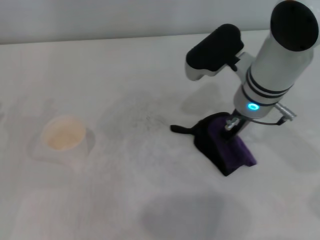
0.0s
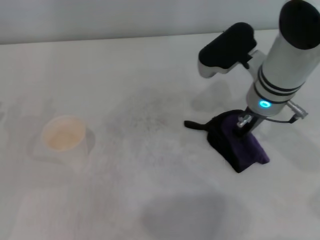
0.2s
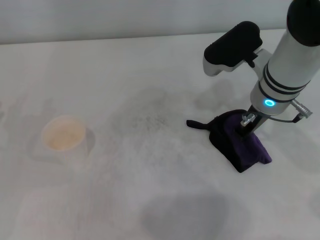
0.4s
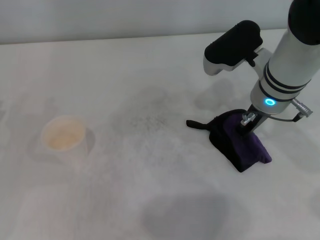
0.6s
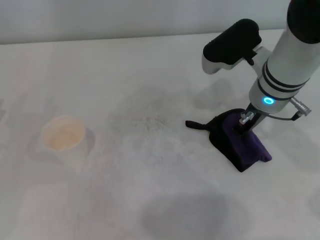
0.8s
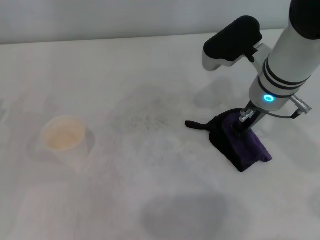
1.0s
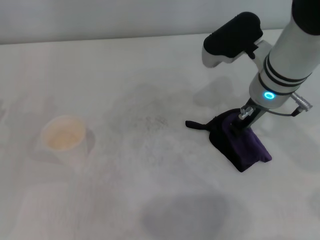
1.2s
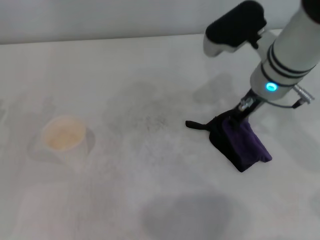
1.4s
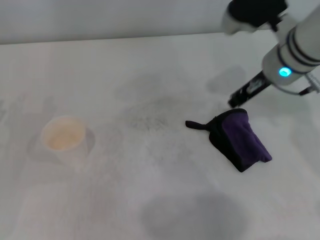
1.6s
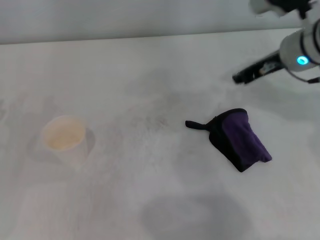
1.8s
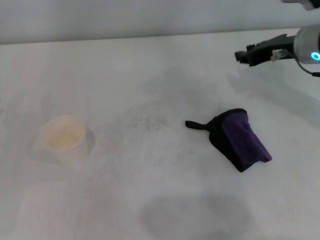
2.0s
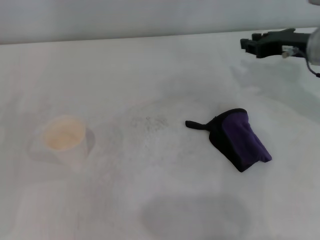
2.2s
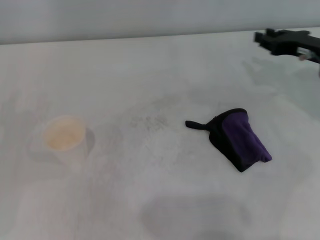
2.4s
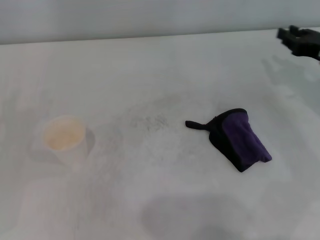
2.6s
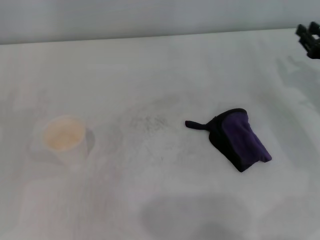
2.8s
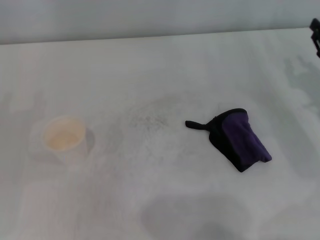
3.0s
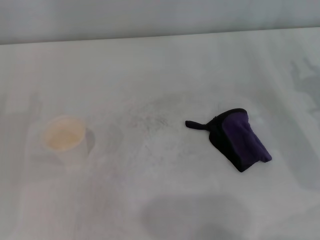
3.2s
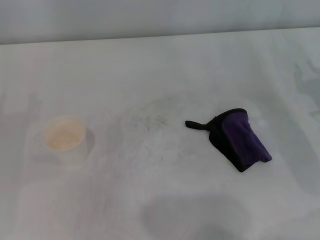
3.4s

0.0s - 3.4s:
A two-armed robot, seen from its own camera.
Step, 0.6s - 1.2s: Place the rag on the table with the right gripper.
0.0s - 1.6s: The right gripper shifts by about 5 cm, and opens.
1.6s - 3.4s: The right gripper travels to the right, downward and backward by about 20 cm.

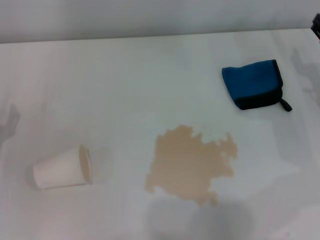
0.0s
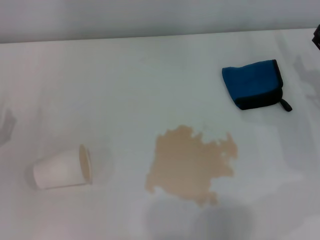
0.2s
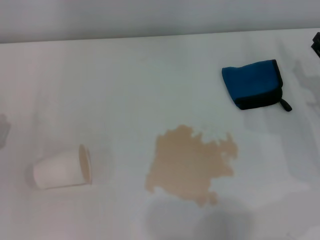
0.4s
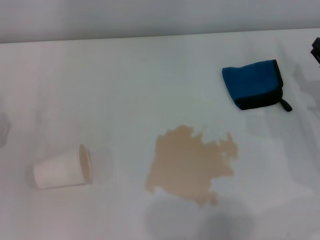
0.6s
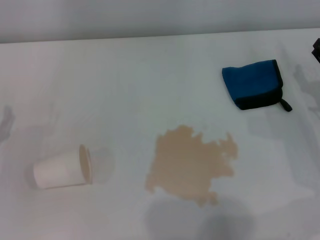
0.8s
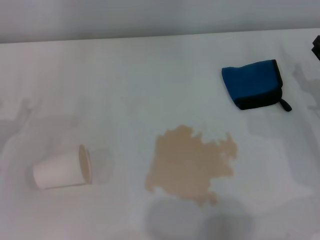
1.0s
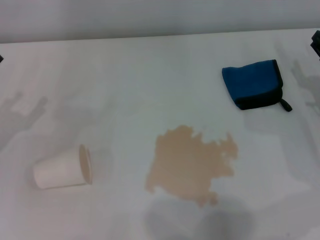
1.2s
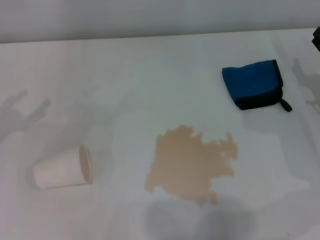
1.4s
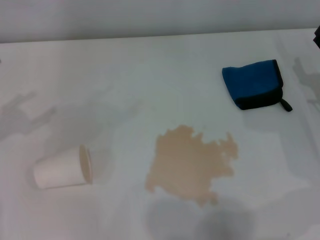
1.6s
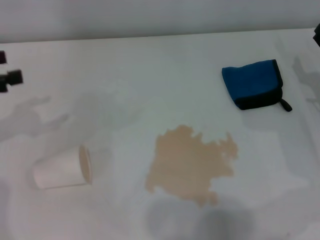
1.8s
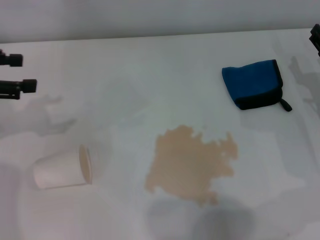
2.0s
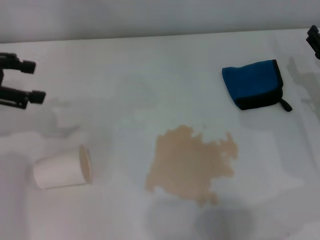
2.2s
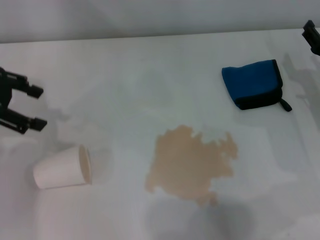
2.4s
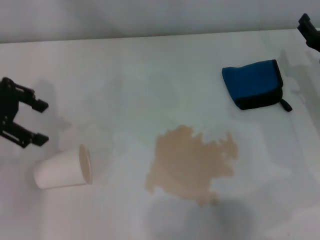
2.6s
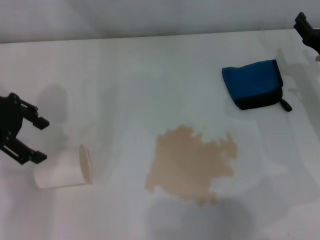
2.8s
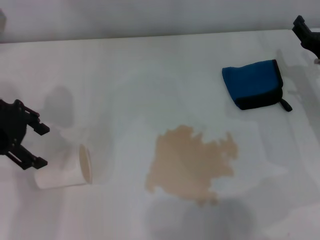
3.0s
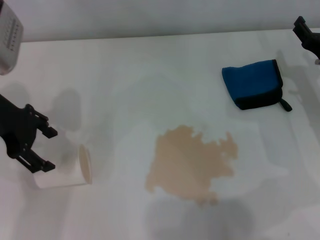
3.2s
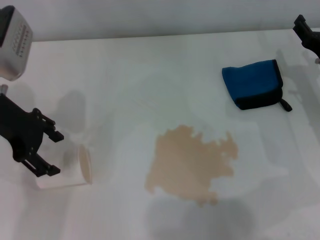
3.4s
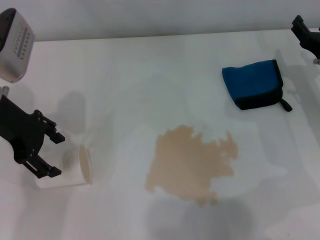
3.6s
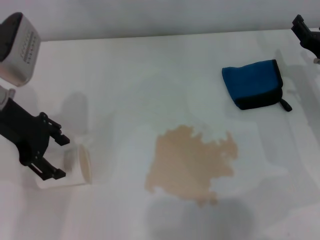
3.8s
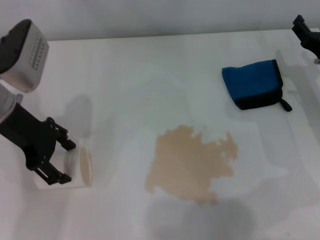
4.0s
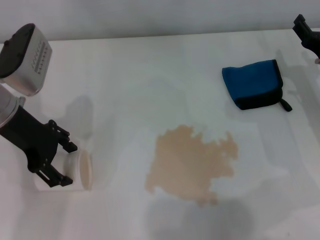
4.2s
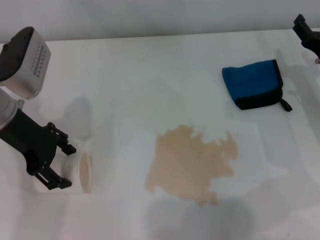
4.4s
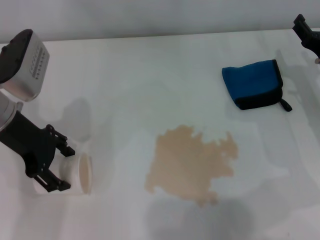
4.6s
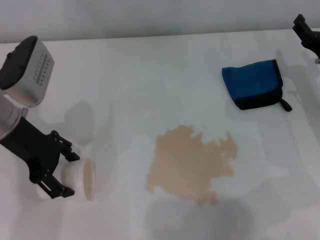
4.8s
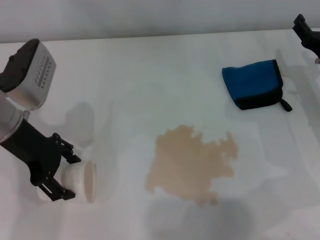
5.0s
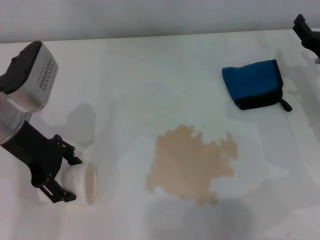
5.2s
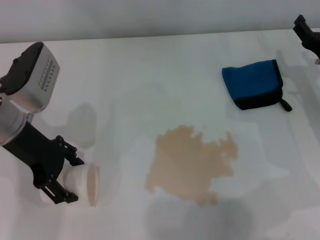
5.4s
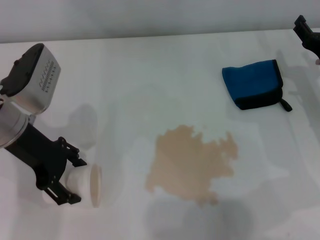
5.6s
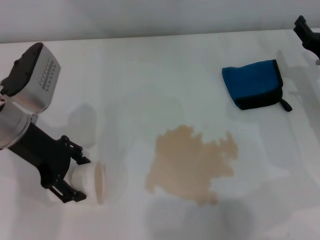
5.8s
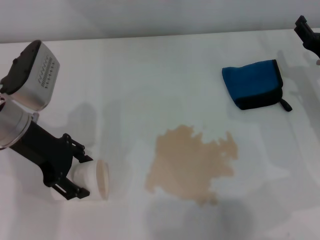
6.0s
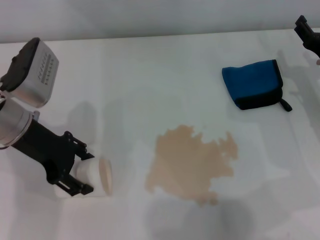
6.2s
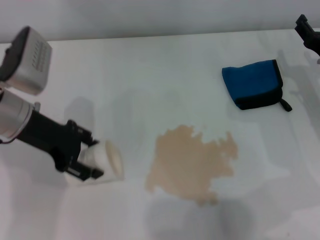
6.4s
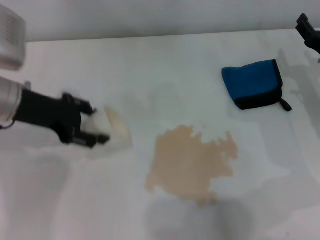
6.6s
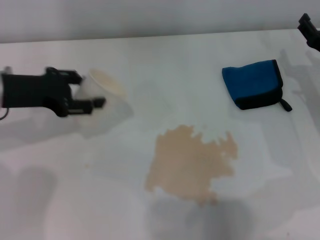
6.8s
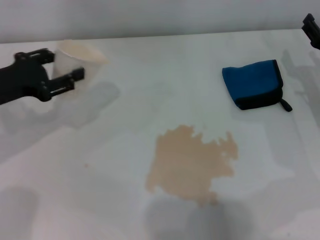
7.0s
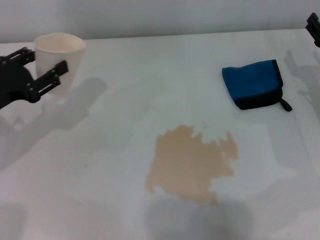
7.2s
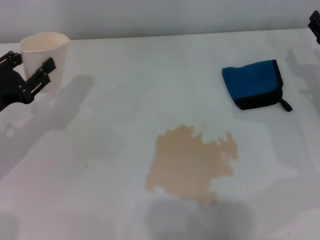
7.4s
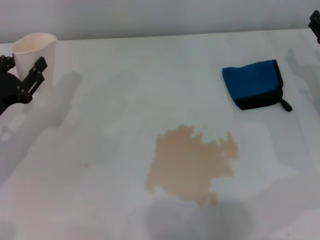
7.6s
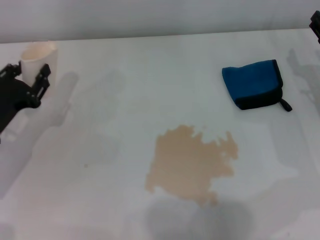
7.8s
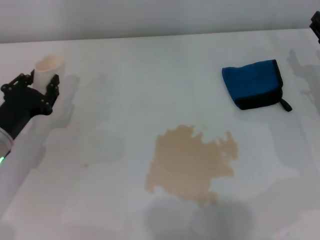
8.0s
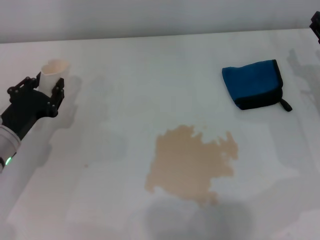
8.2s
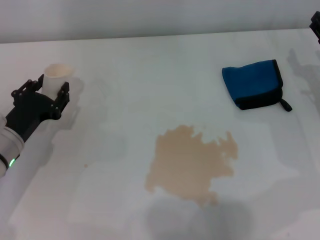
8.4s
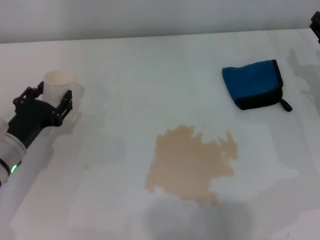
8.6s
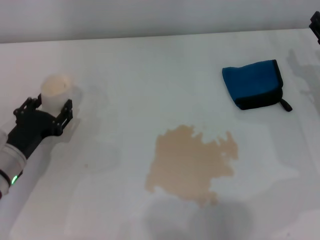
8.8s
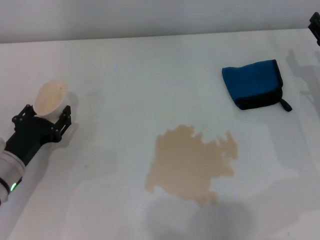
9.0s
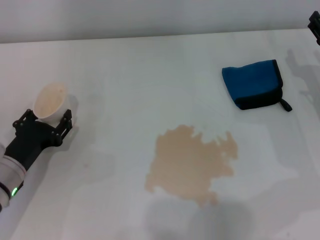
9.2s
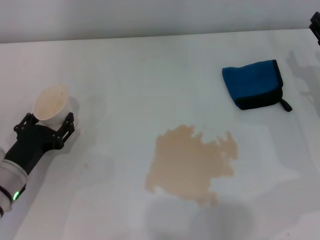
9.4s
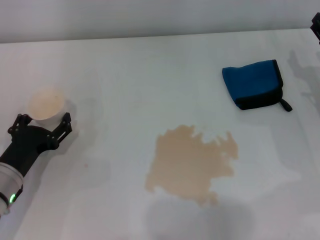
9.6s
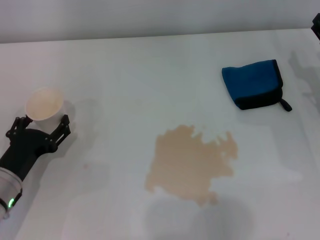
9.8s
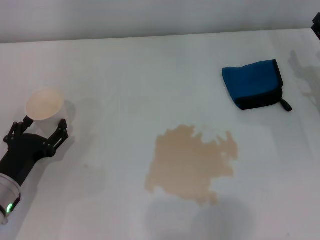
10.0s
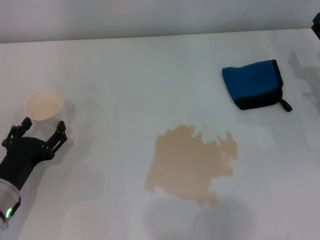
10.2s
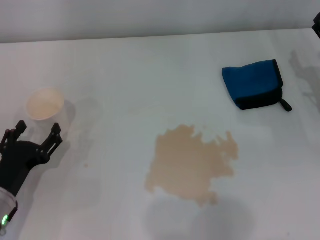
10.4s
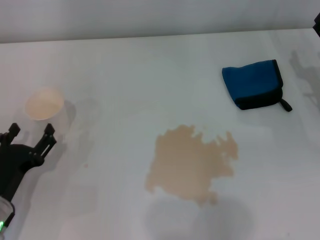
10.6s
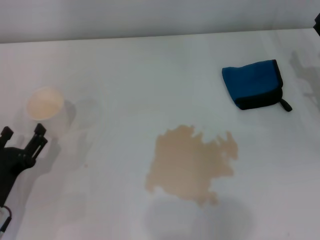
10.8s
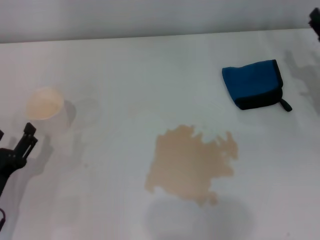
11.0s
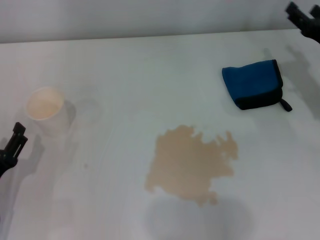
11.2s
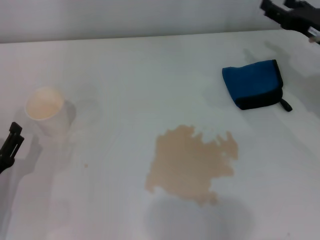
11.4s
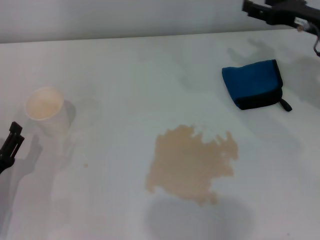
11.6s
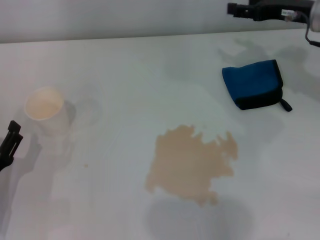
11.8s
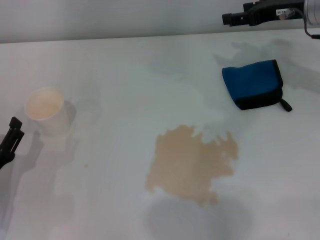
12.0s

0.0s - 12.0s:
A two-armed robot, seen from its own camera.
Step, 0.0s - 5.0s: Grasp the paper cup with the left gripper.
Step, 5.2s - 9.8s: Stand the paper cup upright with the left gripper.
1.6s - 3.0s: The left gripper travels to the right and forward by about 15 cm.
3.0s - 4.4s: The left gripper changes place by approximately 5 cm.
4.4s - 6.0s: The grippers stay close to where they were, moving slightly.
6.0s - 7.6s: The left gripper goes some 10 cm to the left, downward and backward, and closes.
7.6s - 9.0s: The left gripper goes roughly 5 cm downward.
9.0s - 10.4s: The left gripper is displaced backward by roughly 5 cm, and opens.
10.4s - 12.0s: The right gripper is displaced upward, forward and to the left by about 15 cm.

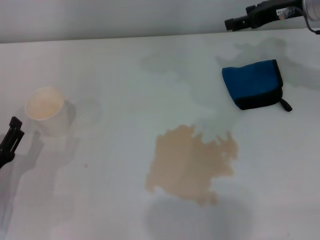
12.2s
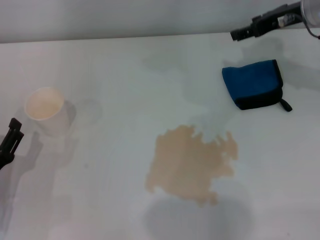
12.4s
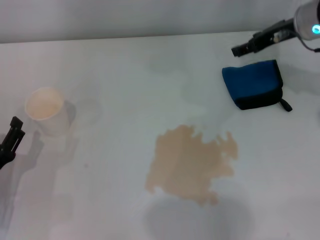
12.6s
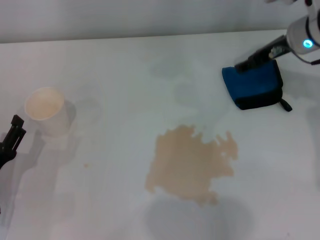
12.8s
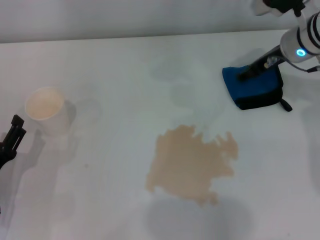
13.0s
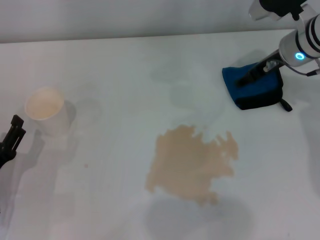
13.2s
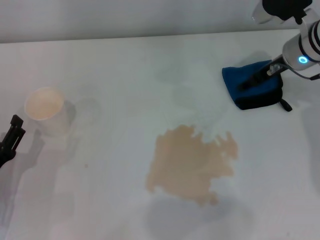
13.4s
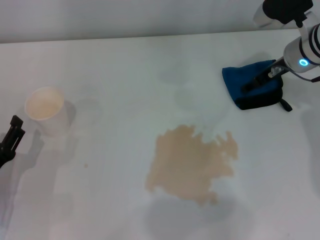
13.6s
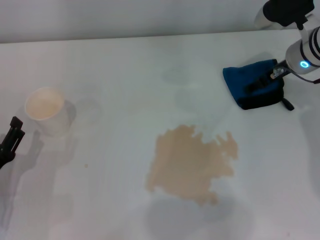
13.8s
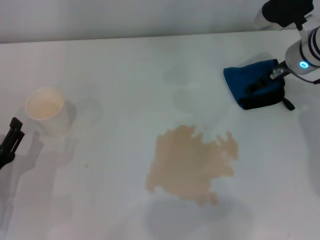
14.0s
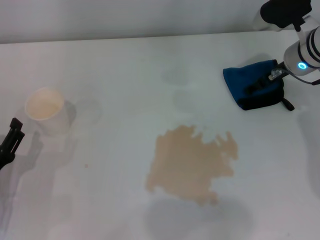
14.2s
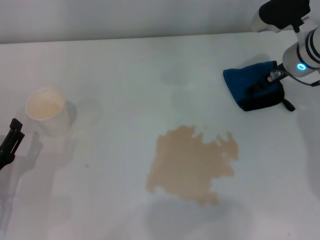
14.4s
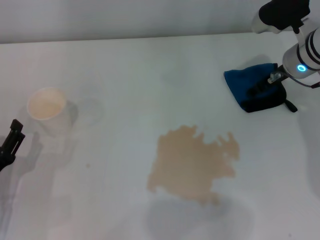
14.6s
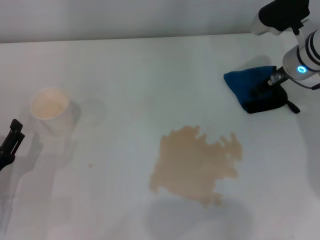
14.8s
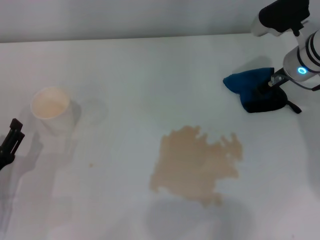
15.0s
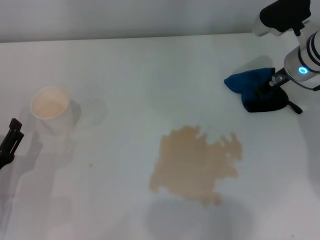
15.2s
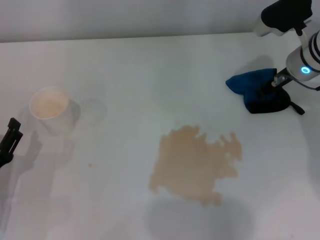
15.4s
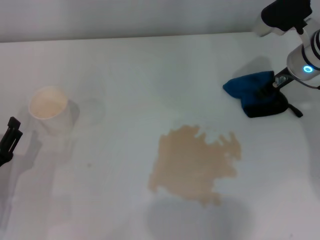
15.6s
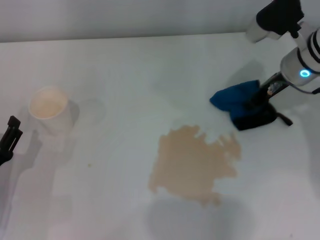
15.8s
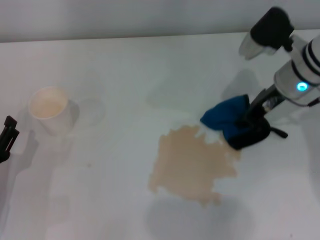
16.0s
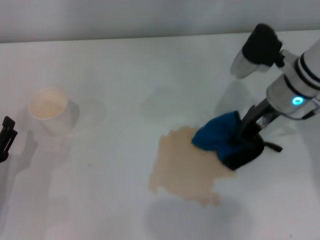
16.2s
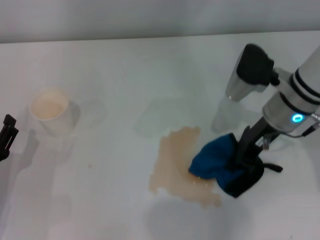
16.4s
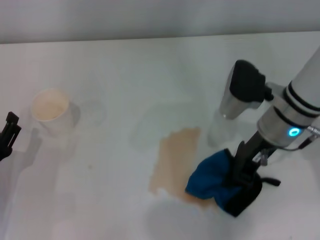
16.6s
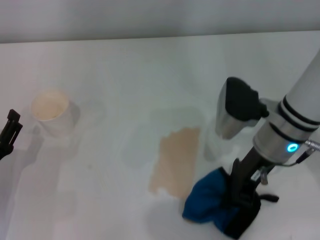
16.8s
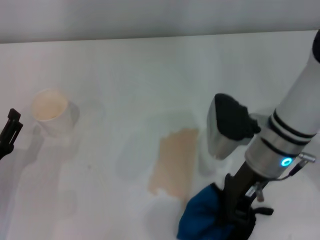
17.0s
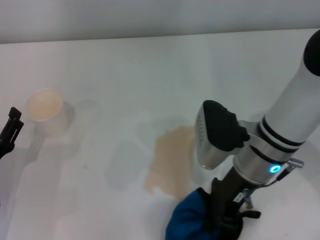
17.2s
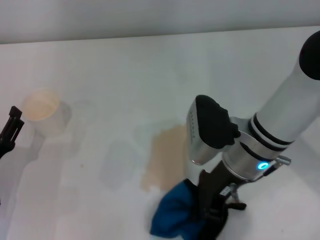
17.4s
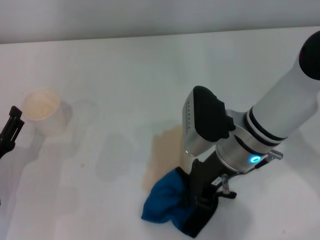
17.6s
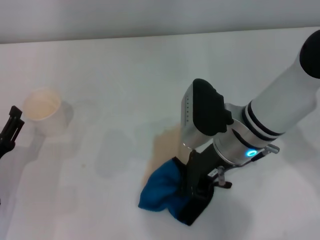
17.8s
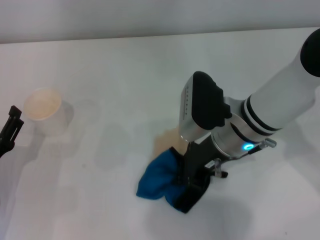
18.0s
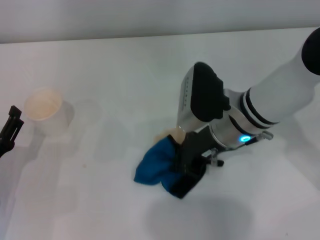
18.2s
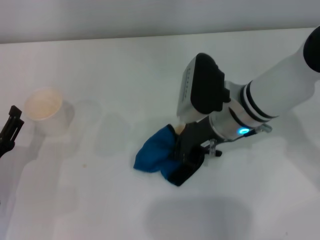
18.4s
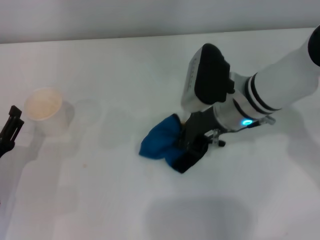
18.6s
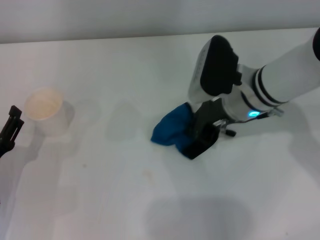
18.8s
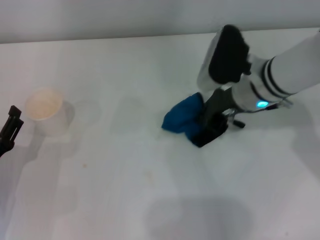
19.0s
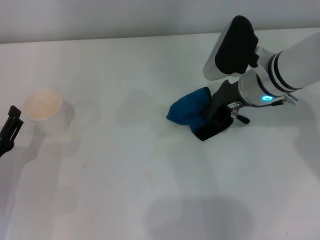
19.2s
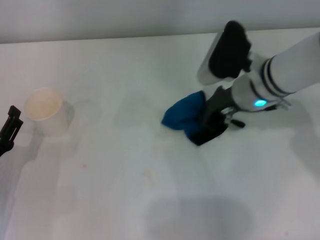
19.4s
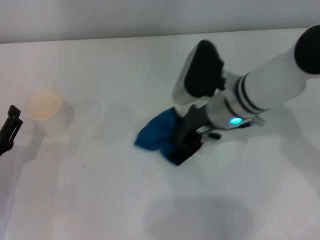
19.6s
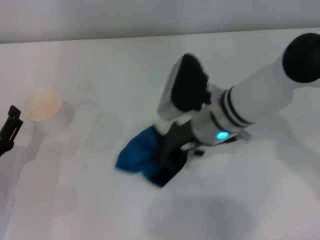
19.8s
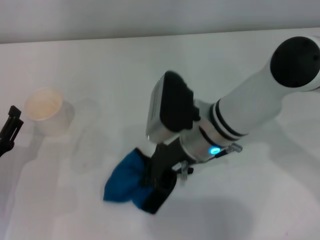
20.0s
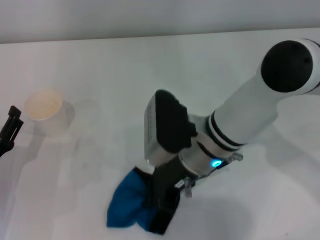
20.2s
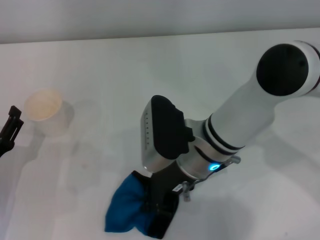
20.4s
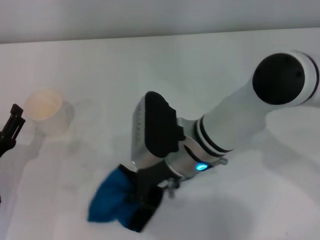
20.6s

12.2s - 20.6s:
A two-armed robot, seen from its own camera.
Step, 12.2s - 14.2s: Grasp the rag with the right gripper.
12.2s - 13.6s: The right gripper travels downward by about 5 cm.
13.6s - 15.0s: The right gripper closes its fingers.
15.0s - 16.4s: The right gripper shifts some 10 cm backward and to the left.
16.4s - 17.8s: The right gripper goes approximately 10 cm to the left.
17.8s - 19.2s: The right gripper travels forward and to the right by some 10 cm.
19.2s - 20.6s: The right gripper travels to the left and backward by some 15 cm.
